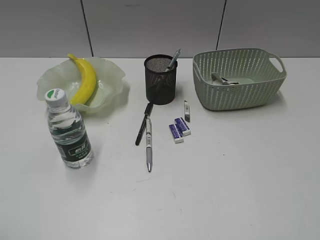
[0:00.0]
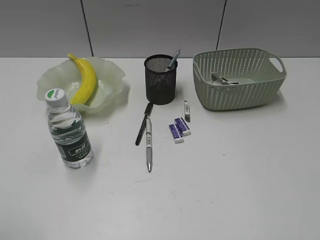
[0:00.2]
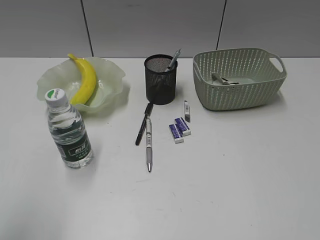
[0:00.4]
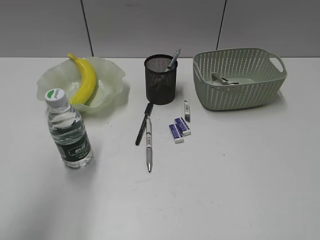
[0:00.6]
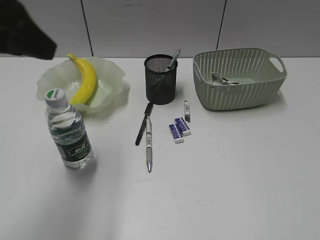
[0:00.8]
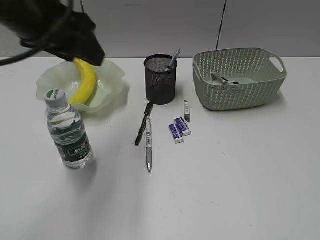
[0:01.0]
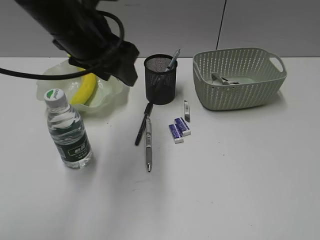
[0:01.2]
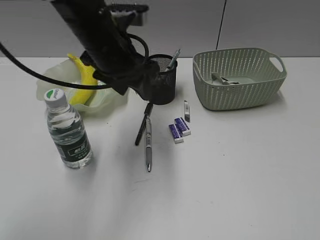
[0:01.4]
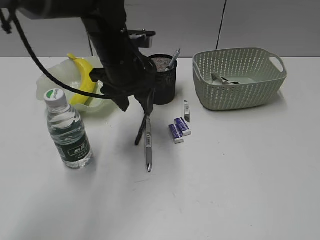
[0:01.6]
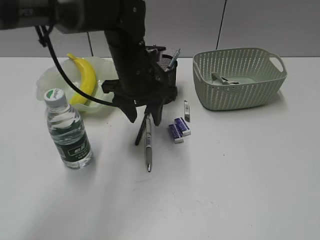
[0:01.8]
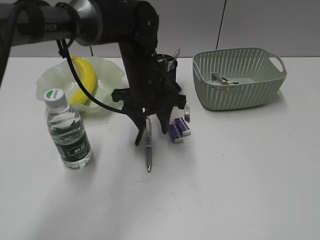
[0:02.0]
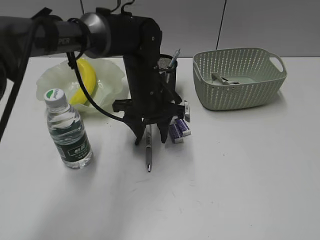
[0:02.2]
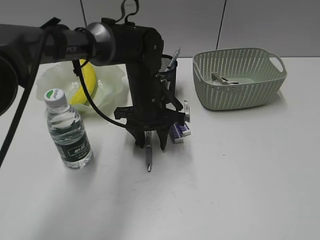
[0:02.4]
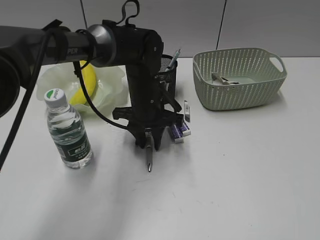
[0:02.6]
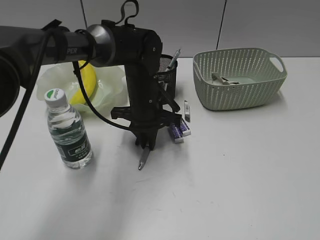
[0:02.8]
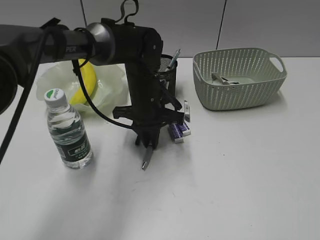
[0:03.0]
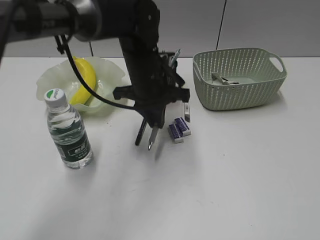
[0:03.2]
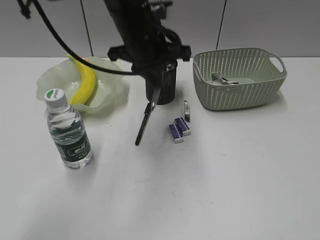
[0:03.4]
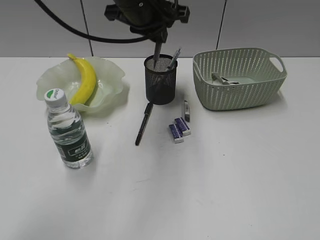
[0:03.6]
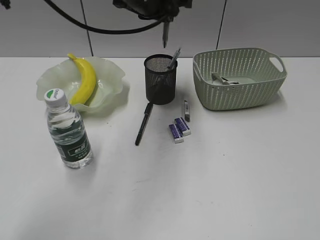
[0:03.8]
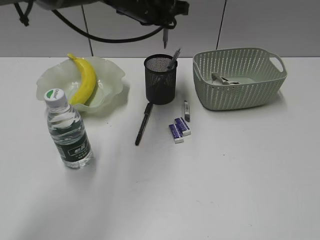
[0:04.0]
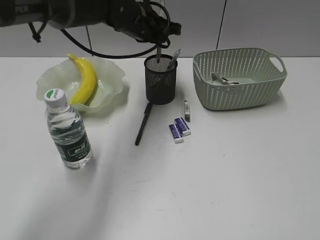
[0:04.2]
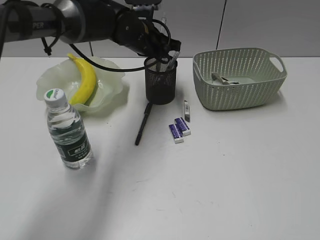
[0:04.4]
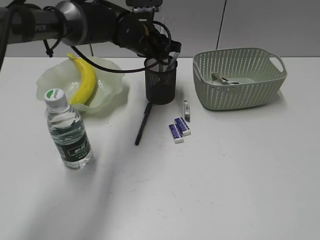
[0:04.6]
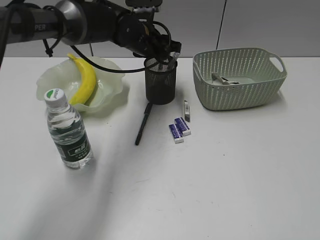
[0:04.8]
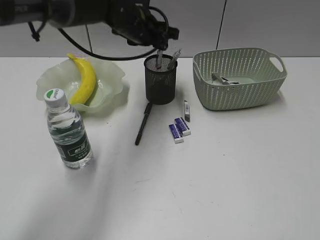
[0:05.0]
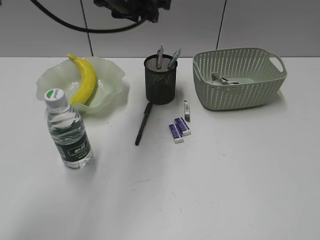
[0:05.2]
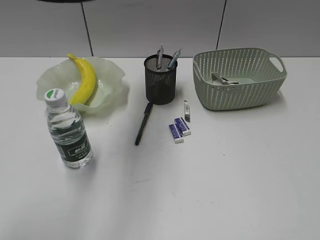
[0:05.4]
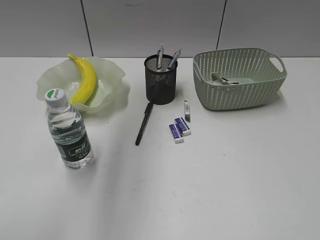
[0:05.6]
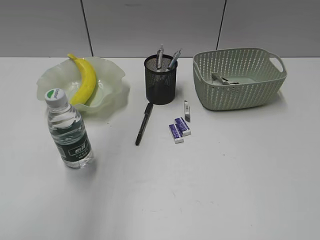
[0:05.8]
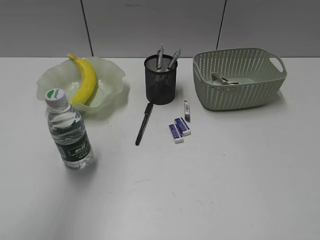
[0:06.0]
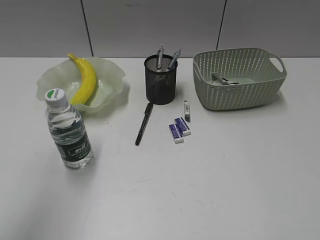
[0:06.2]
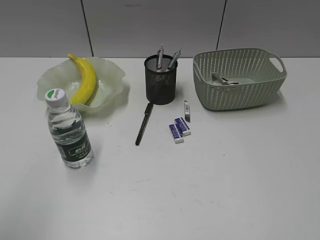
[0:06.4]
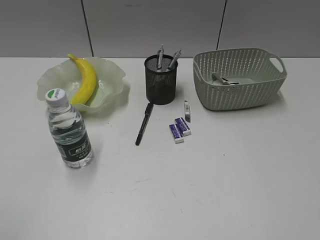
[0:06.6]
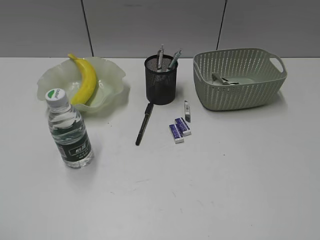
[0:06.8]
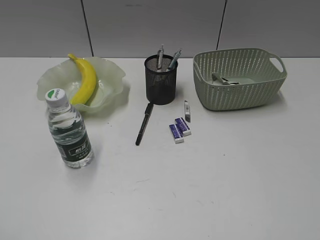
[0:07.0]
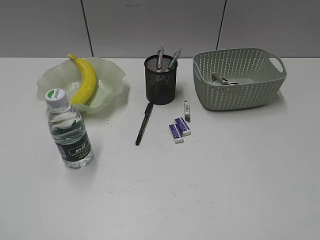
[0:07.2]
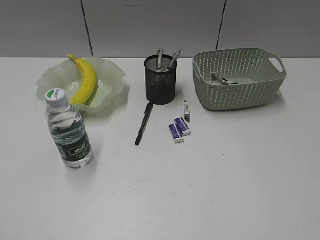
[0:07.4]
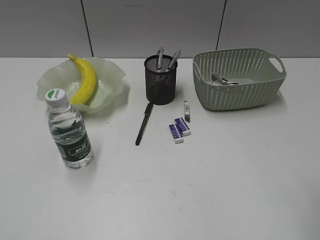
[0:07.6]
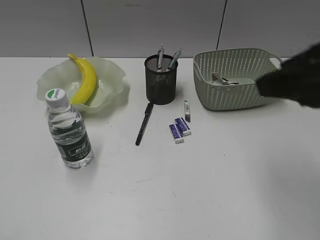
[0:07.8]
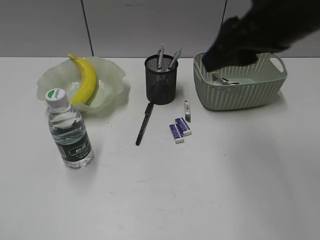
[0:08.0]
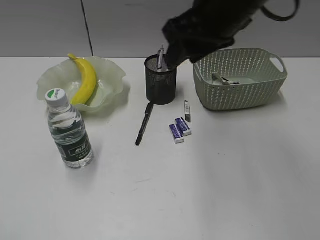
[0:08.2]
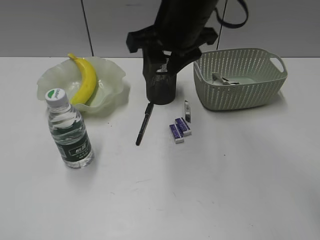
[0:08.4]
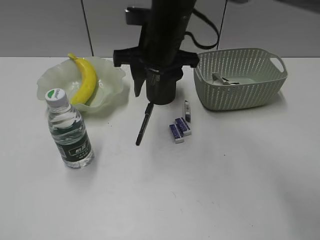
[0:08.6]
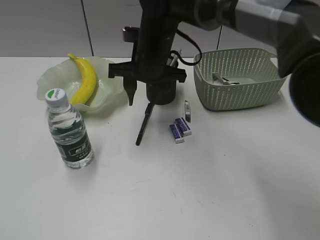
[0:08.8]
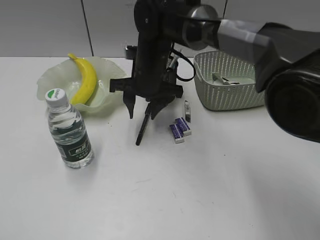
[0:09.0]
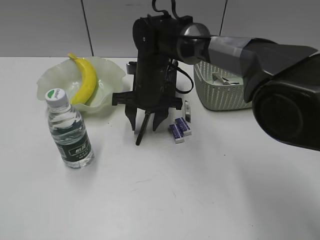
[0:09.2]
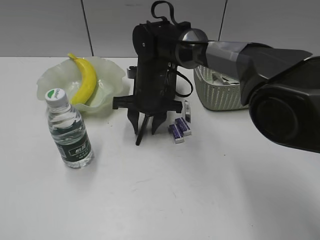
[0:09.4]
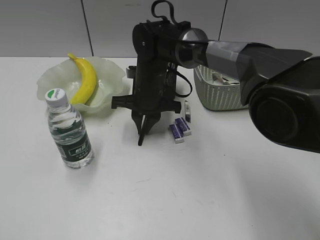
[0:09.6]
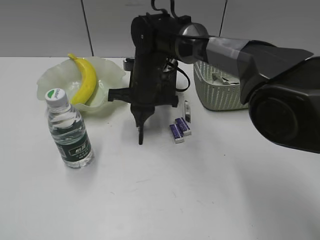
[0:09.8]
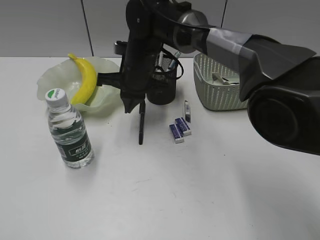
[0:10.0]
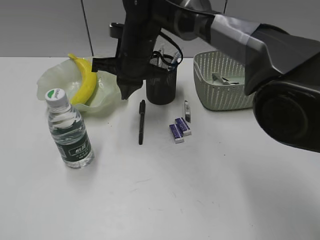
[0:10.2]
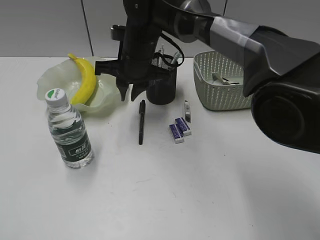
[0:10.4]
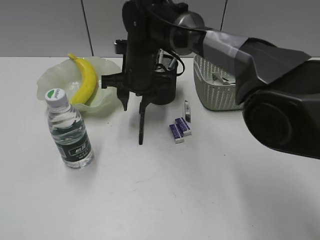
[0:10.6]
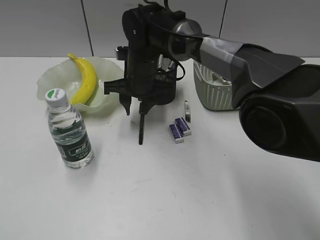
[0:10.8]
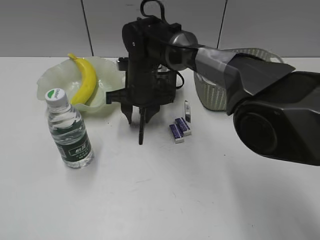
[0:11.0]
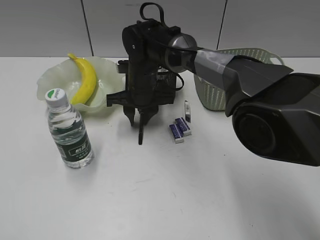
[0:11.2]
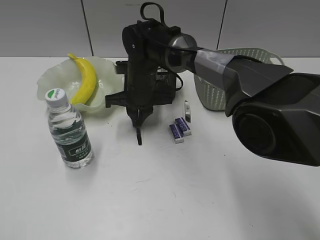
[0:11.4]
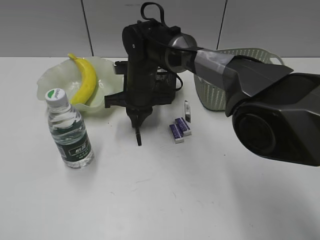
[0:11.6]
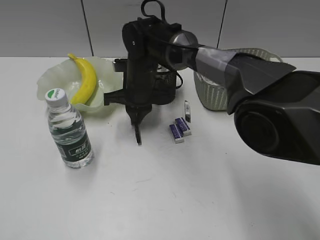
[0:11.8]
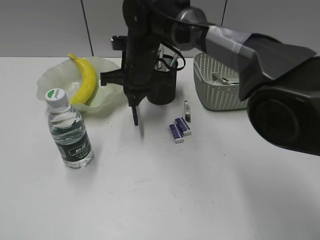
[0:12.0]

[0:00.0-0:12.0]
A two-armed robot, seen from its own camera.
Step, 0:00.0 to 0:02.8: Grasp the gray pen with left gripper.
Step, 0:03.0 to 0:04.8: Place the gray pen in pen holder with left gripper.
Step, 0:05.0 to 0:11.6: Grasp the black pen with right gripper.
0:00.0 to 0:01.6: The left gripper goes some 40 cm forward and to the right.
0:01.6 to 0:03.0: The left gripper shifts some 10 cm downward, and closes.
0:03.0 to 0:04.4: The left gripper travels forward and upward by roughly 10 cm.
0:04.4 to 0:06.0: The left gripper shifts some 40 cm upward, backward and to the left, and opens its fingers.
0:06.0 to 0:07.6: The left gripper travels backward, downward and to the left by roughly 30 cm.
0:07.6 to 0:09.0: The right gripper is displaced forward, to the left and downward by about 40 cm.
0:09.0 to 0:10.4: The right gripper closes up.
0:10.4 to 0:12.0: The right gripper opens, then closes again.

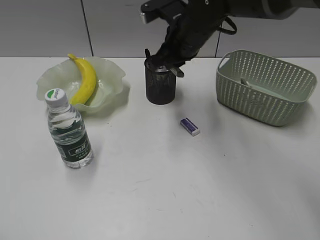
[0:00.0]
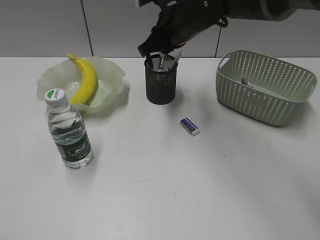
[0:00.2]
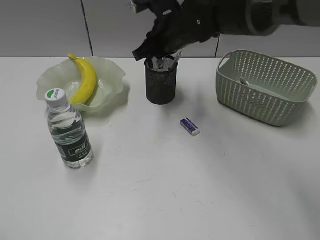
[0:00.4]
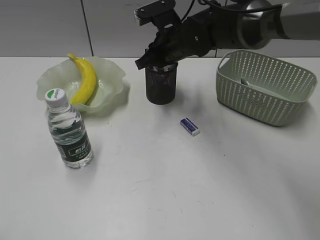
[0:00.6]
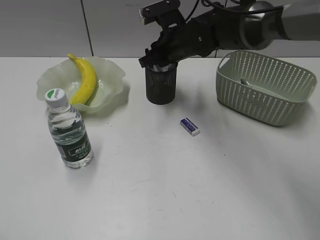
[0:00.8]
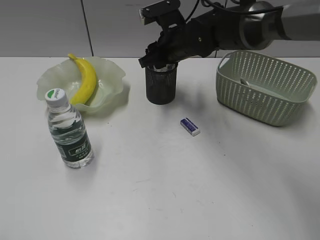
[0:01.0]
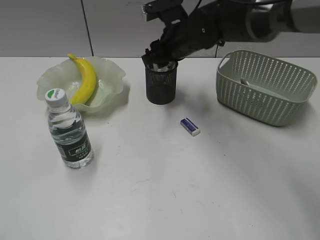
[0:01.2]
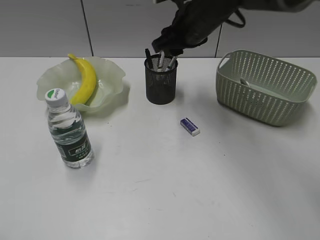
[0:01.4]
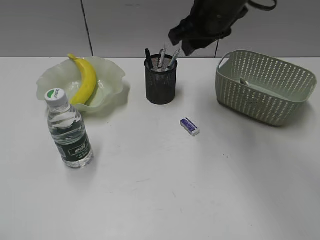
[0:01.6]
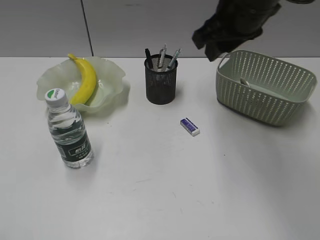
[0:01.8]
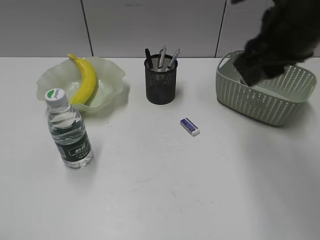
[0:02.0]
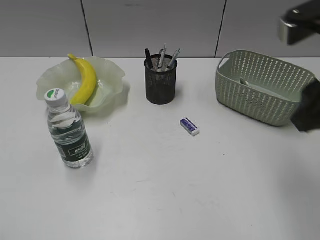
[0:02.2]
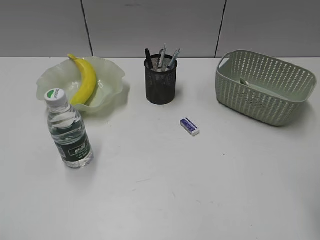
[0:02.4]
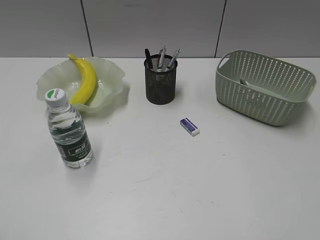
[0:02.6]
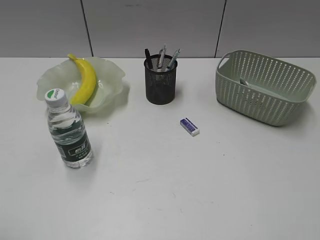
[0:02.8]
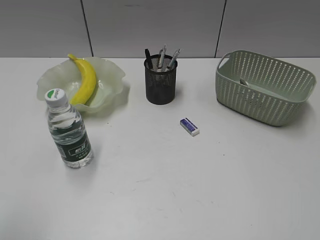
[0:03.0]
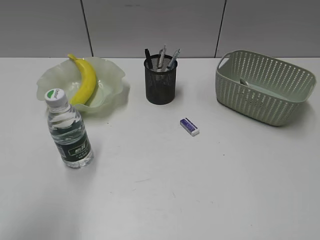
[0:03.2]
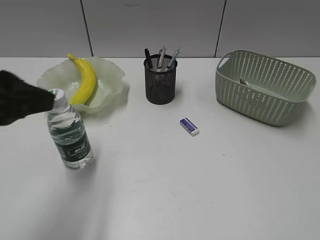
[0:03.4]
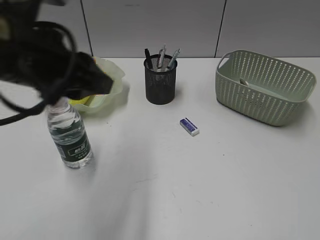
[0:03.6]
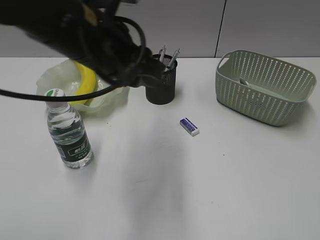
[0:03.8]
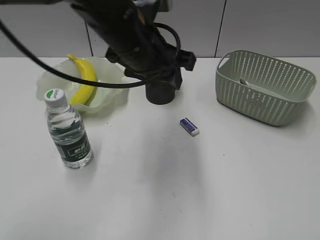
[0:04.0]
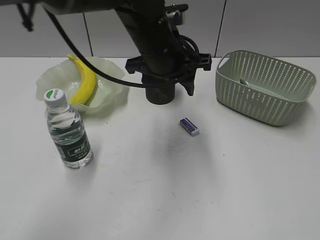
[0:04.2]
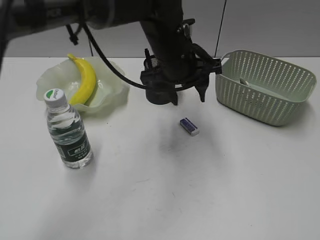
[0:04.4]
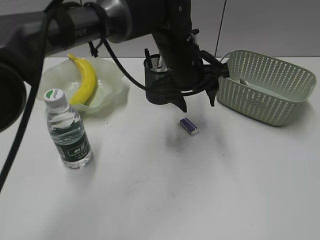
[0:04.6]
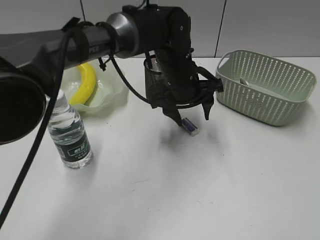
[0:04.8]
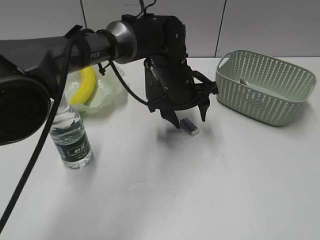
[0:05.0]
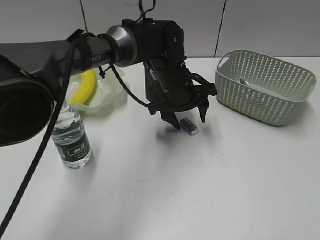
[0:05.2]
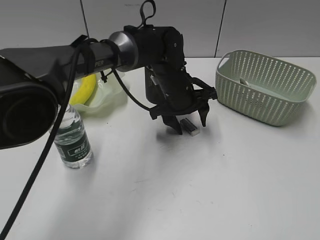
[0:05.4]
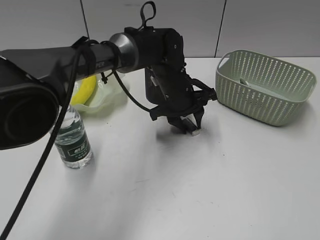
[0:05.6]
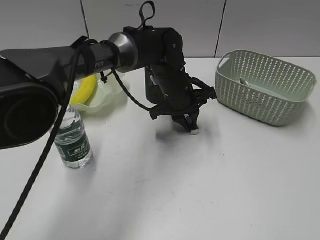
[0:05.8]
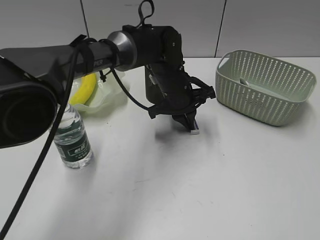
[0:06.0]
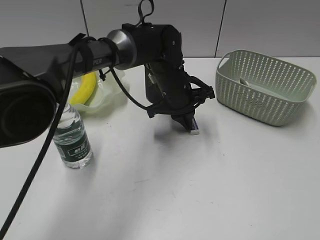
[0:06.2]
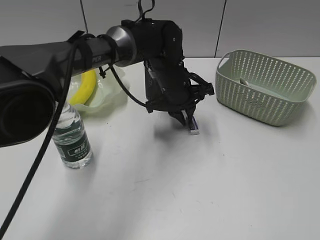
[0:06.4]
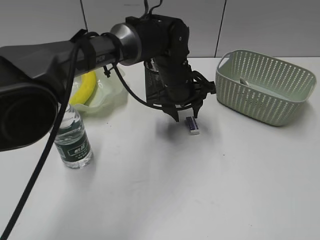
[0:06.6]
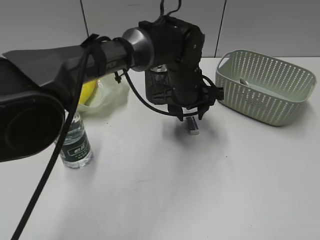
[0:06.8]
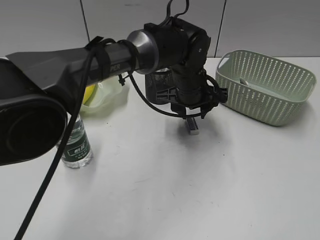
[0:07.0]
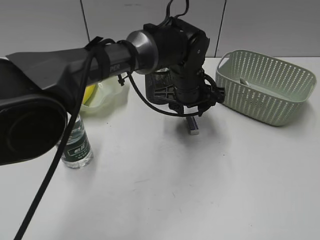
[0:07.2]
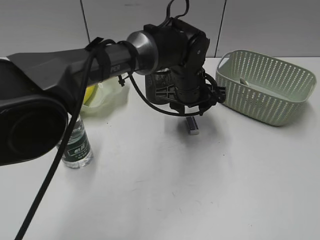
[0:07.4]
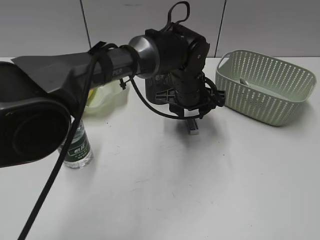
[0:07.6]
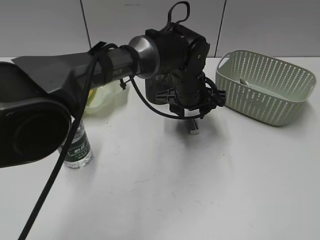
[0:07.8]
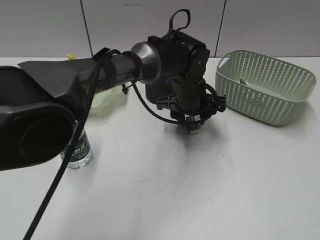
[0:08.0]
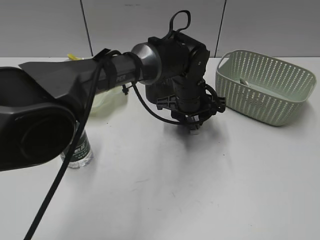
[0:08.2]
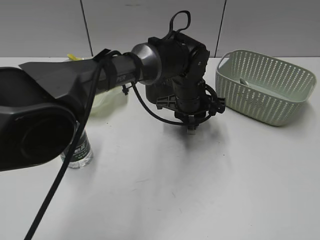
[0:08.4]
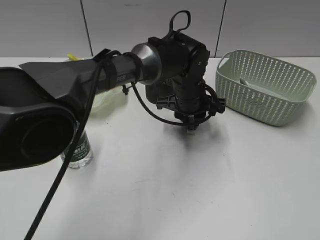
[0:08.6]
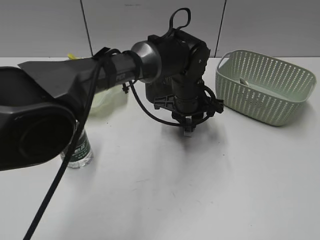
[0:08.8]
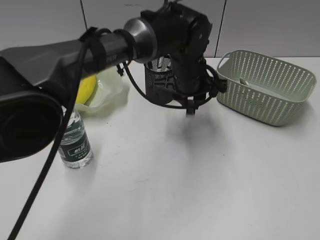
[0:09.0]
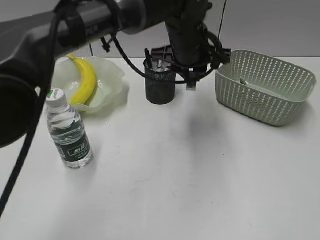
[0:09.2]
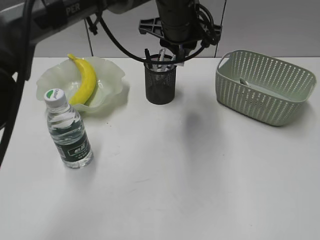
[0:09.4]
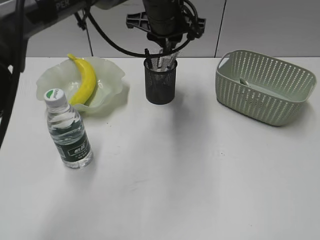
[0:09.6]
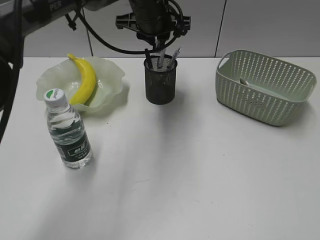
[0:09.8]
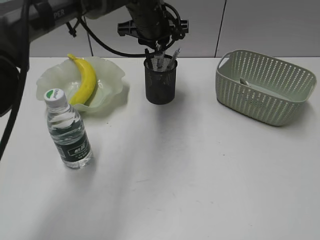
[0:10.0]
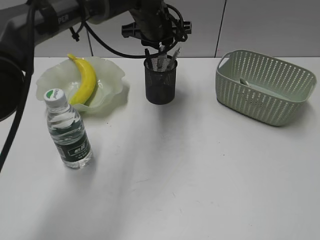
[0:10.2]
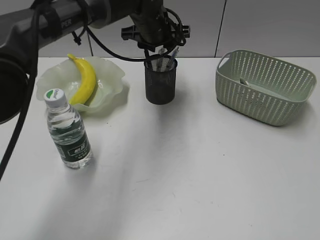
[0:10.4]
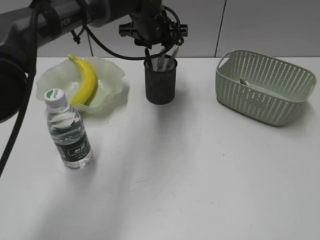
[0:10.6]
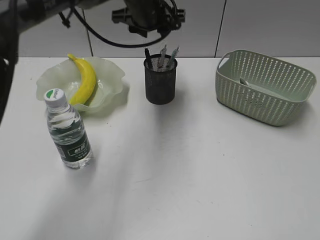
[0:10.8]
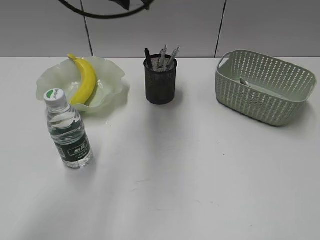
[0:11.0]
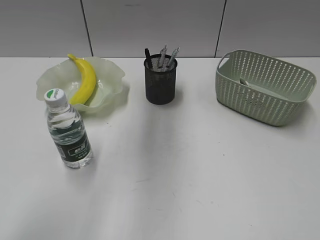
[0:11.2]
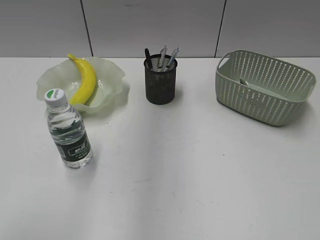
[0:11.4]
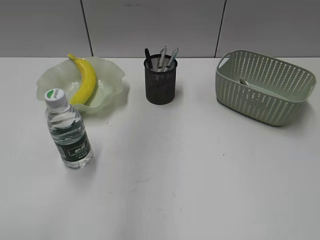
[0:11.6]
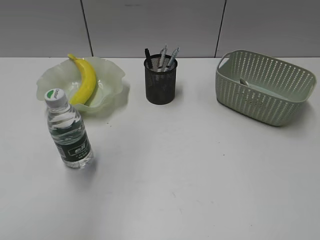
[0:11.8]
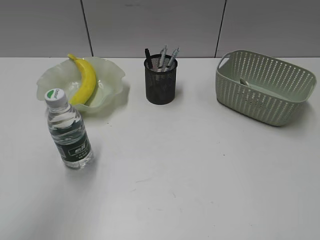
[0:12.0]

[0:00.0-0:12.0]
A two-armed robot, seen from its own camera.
Step, 0:01.2 to 0:08.6: Grasp the eraser with left gripper.
Step, 0:08.8 to 0:10.4: Place the eraser in pen holder with left gripper.
0:00.0 to 0:01.6: The right gripper shifts some 5 cm upward, and opens up.
0:01.6 to 0:03.0: The left gripper shifts roughly 5 cm forward. The right gripper is displaced backward and to the right by roughly 40 cm.
0:03.0 to 0:04.4: The left gripper shifts roughly 40 cm to the right and forward.
0:04.4 to 0:06.0: The left gripper goes about 10 cm downward, and closes its fingers.
0:06.0 to 0:07.6: The left gripper opens up.
0:07.6 to 0:09.0: The left gripper closes.
0:09.0 to 0:10.4: The left gripper shifts roughly 10 cm forward, to the left and upward.
0:10.4 to 0:12.0: The left gripper travels backward, to the left and upward by about 40 cm.
